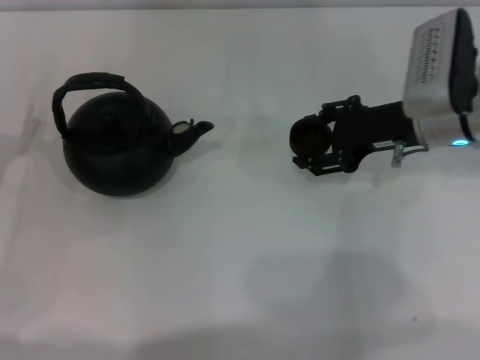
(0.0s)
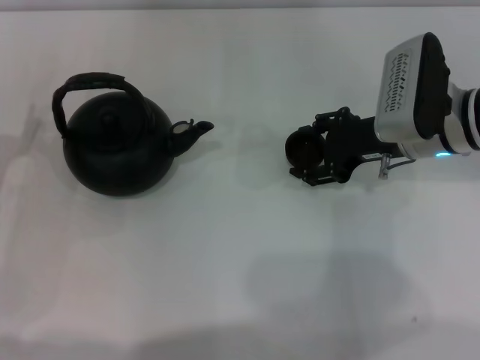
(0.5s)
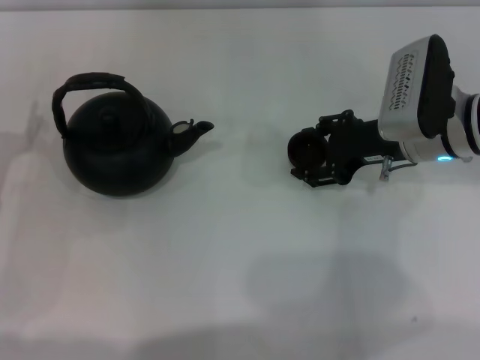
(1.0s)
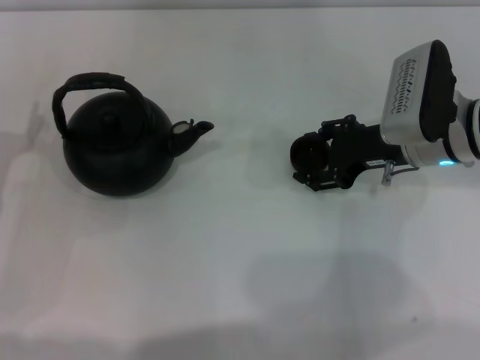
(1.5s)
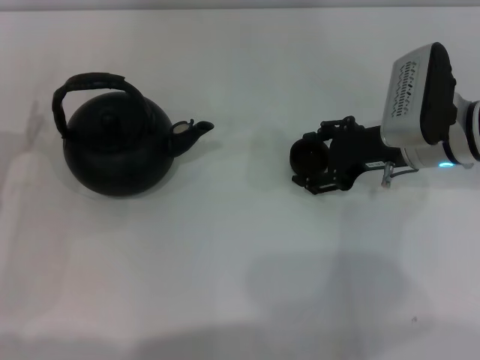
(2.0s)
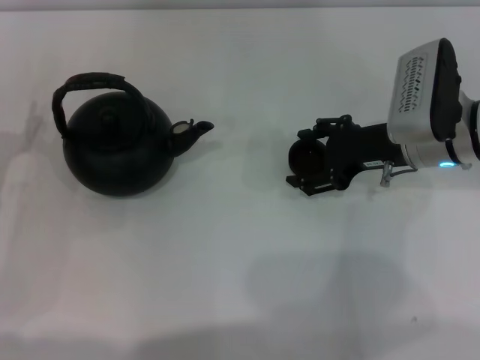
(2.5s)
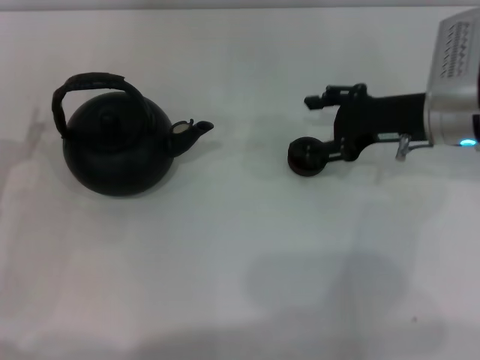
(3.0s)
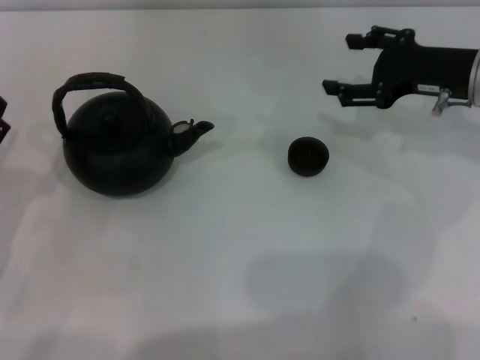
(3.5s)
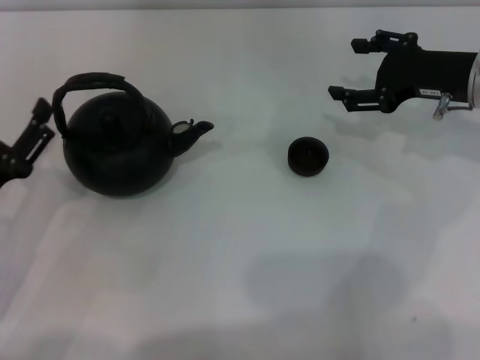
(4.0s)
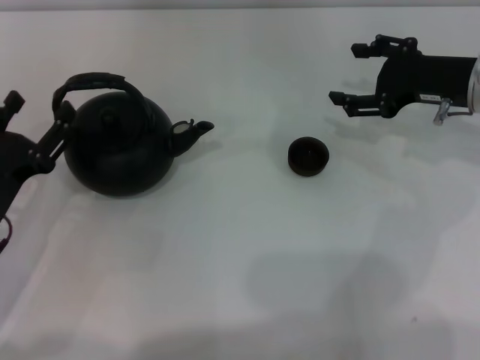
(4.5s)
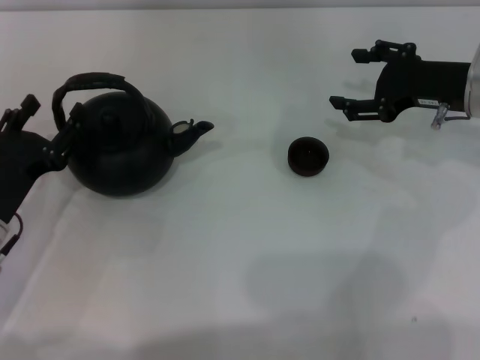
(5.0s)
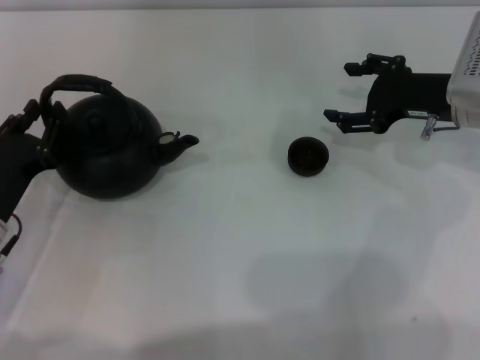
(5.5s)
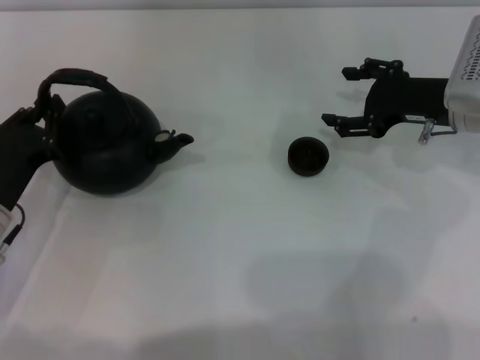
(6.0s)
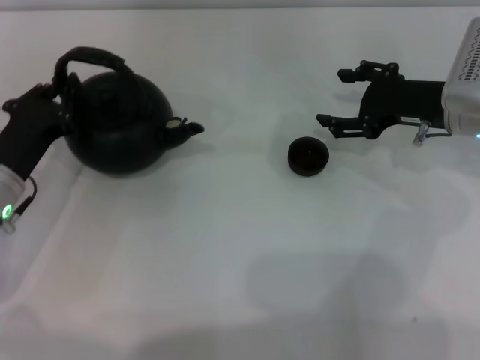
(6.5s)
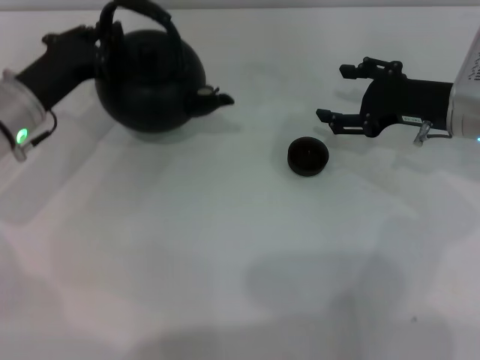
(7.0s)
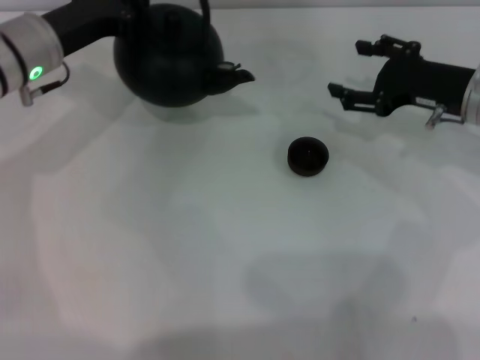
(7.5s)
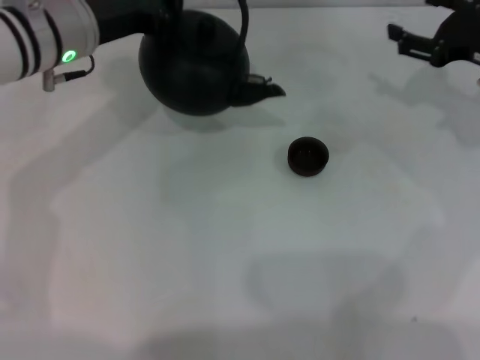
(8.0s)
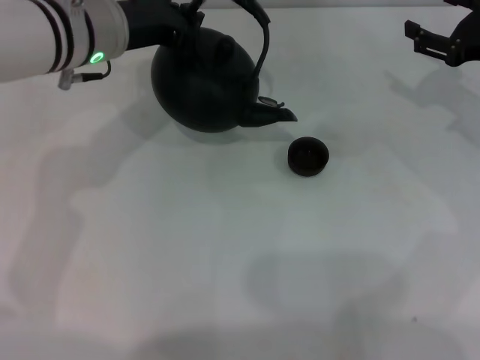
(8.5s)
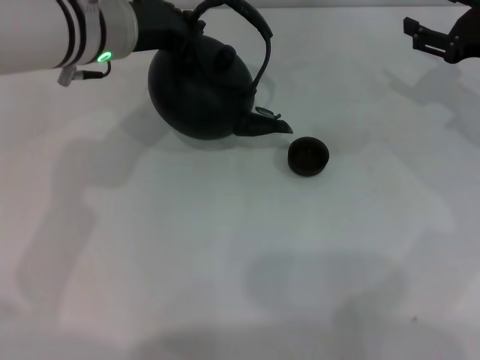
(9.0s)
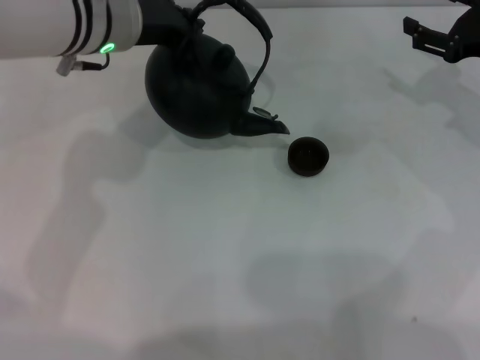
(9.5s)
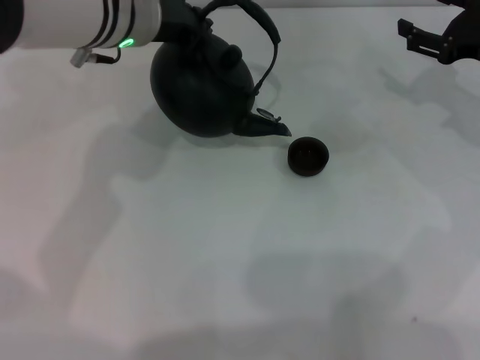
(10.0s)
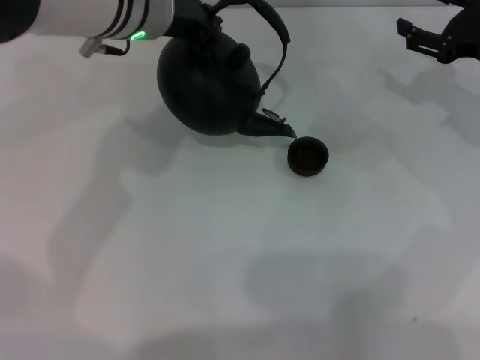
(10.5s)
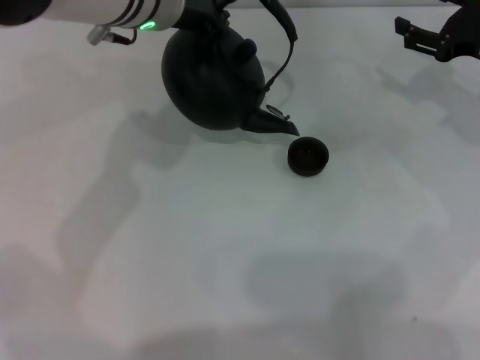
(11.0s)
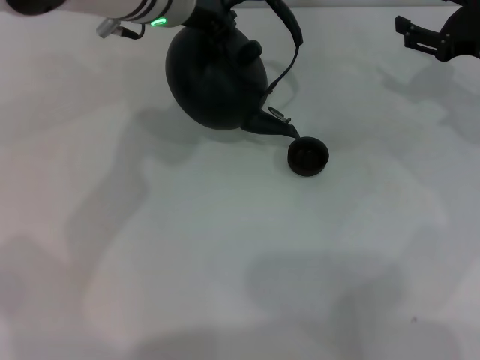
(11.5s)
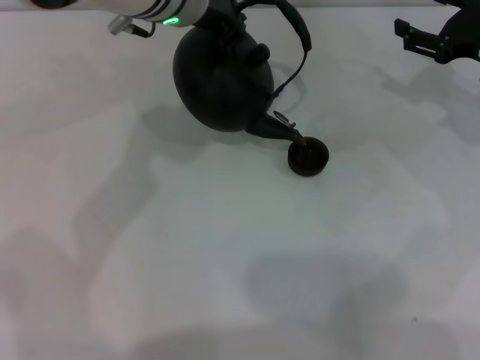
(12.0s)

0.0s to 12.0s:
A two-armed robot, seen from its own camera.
Task of the whole recording: Grasp the handle of the teapot with one hand and pour tea into the teacup.
Step, 0.5s to 3.5s: Place the teacup in the center of view with the right gripper.
Step, 4.0s to 8.0s: Pick up the teapot with the left gripper.
0.0s to 2.0s: There are only small adjustments of the grippers.
2.0s to 4.0s: The right gripper is displaced to the right by approximately 5 cm, and opens, while the left gripper moves backward, some 5 cm.
4.0s to 6.0s: The left gripper changes place by about 5 cm, and closes.
6.0s to 8.0s: The right gripper moves to the right, some 5 cm; the left gripper shifts roughly 20 cm forward, upward and to the right.
8.0s to 10.0s: The left gripper moves to the right, some 5 cm.
10.0s to 12.0s: The grippers stay close to where they were, moving slightly.

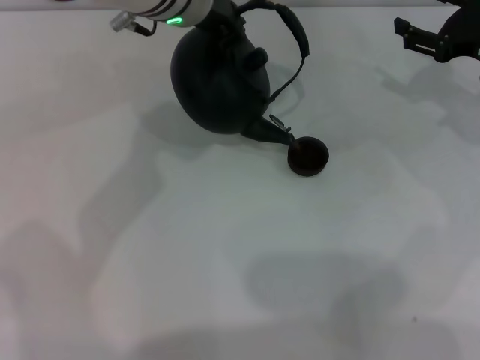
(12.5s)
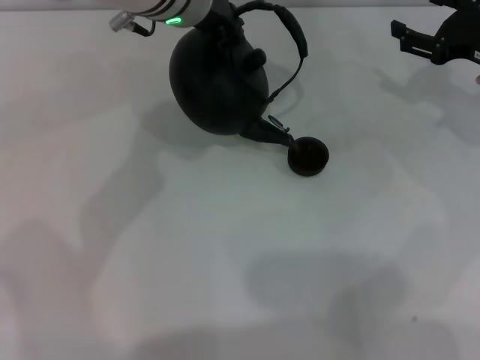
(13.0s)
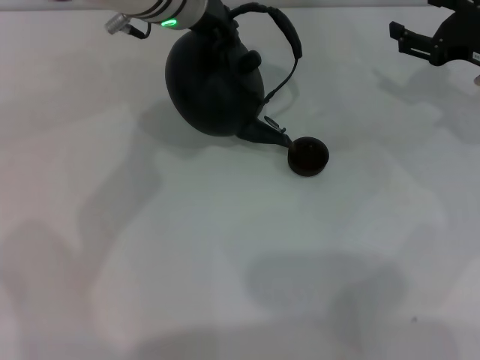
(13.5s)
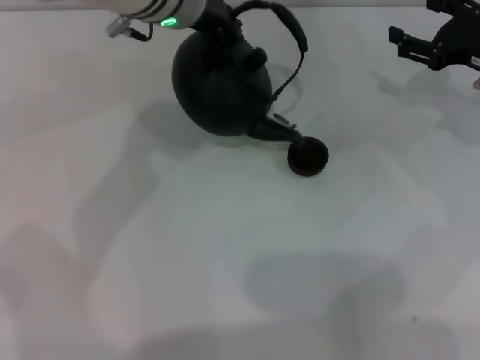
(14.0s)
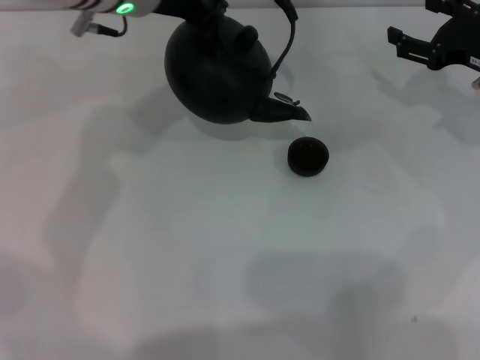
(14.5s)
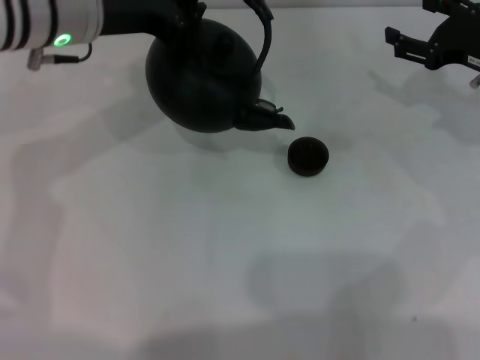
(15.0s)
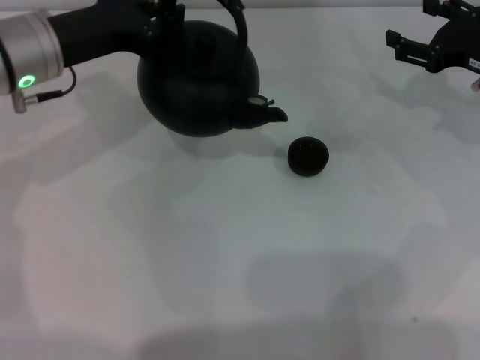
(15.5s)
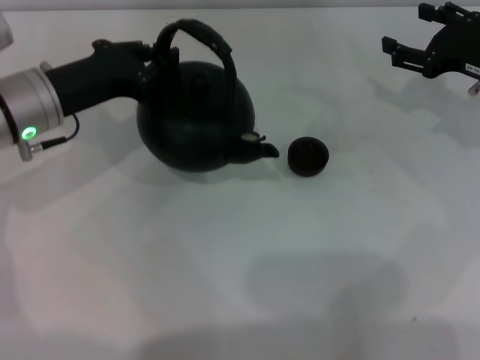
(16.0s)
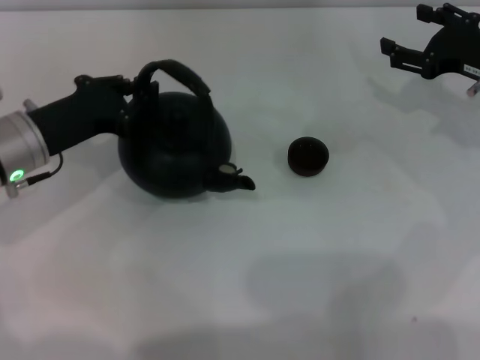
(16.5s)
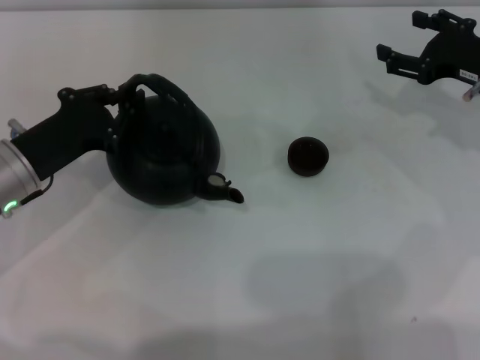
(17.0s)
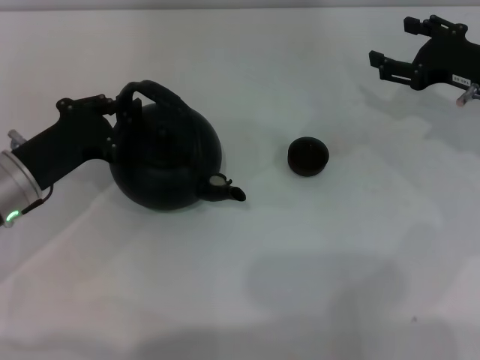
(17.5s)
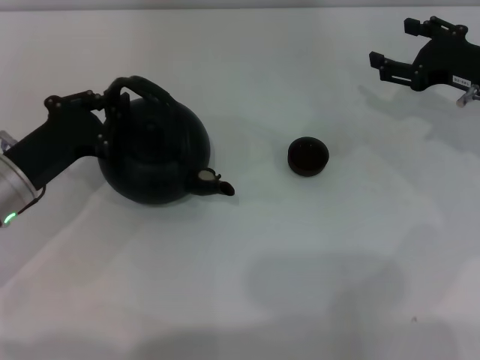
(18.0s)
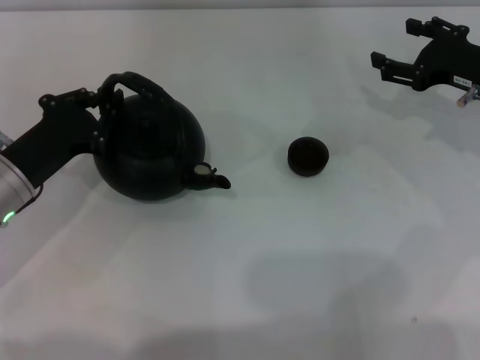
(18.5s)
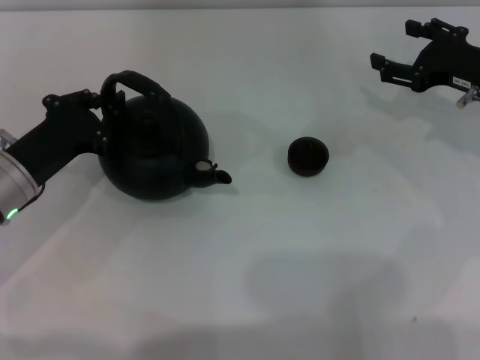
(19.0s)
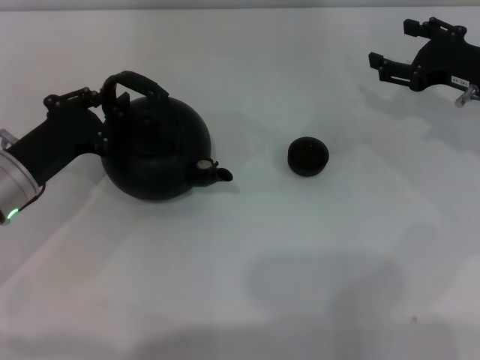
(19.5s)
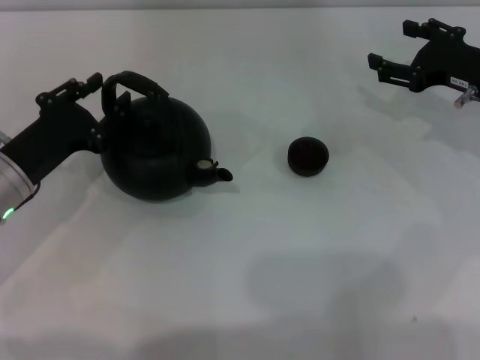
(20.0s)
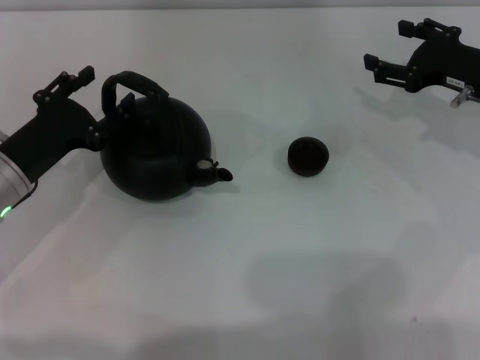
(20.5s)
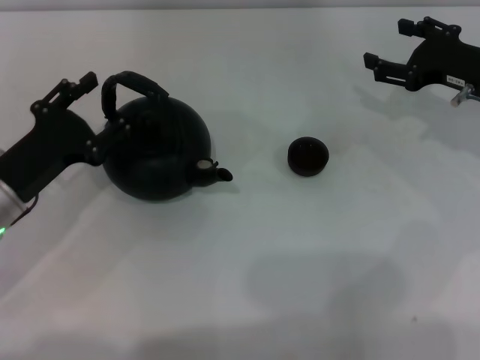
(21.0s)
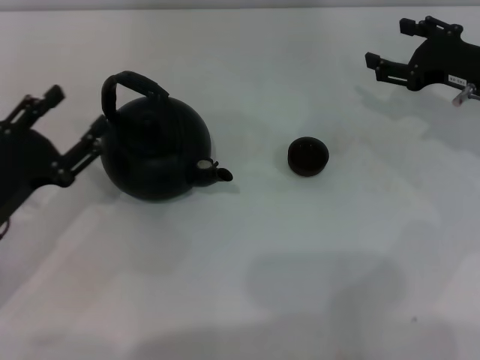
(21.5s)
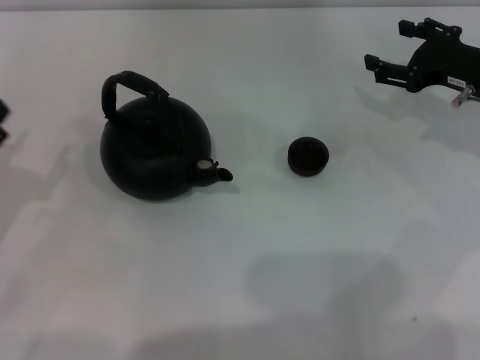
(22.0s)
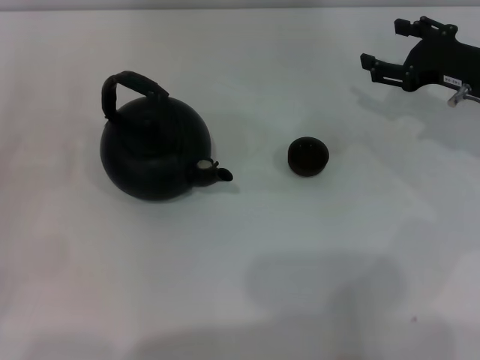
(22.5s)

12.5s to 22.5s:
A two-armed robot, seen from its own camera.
Task of the whole recording: Grasp the handle of the teapot with one hand and pour tea into the teacup.
Step, 14.5s to 21.0s: Put down the teapot with the left gripper.
12.5s to 14.5s: The left gripper is displaced to the left by some 5 cm.
14.5s to 16.5s: The left gripper shifts approximately 20 cm downward, to the left and backward.
16.5s to 18.5s: The left gripper moves roughly 5 cm.
18.5s to 20.5s: The left gripper opens.
20.5s to 22.5s: The left gripper is displaced to the left and backward by about 15 cm.

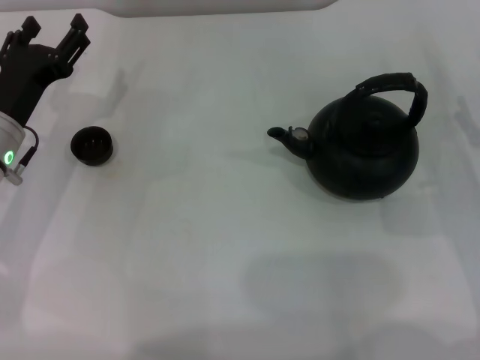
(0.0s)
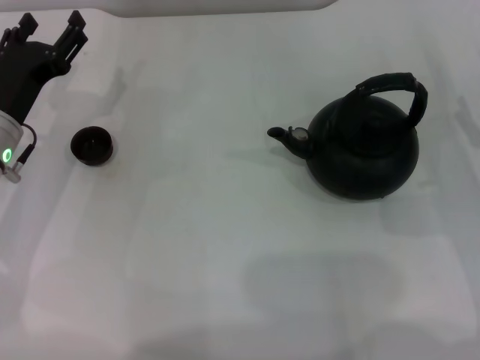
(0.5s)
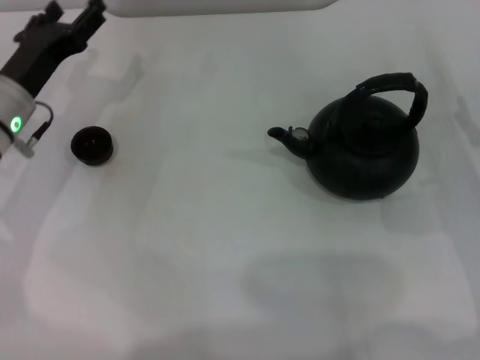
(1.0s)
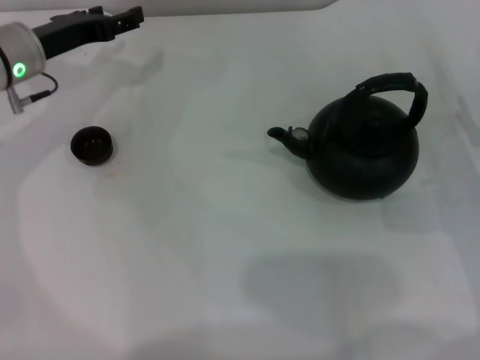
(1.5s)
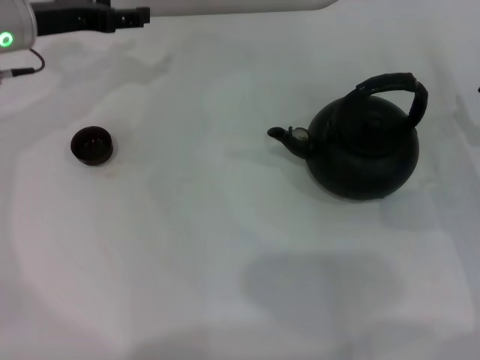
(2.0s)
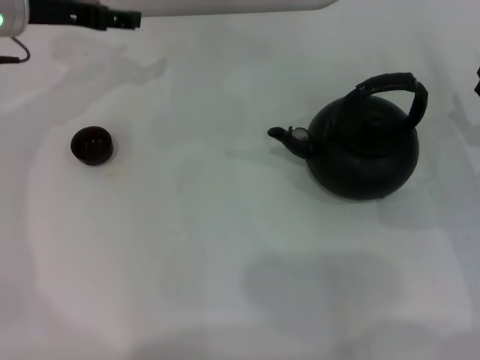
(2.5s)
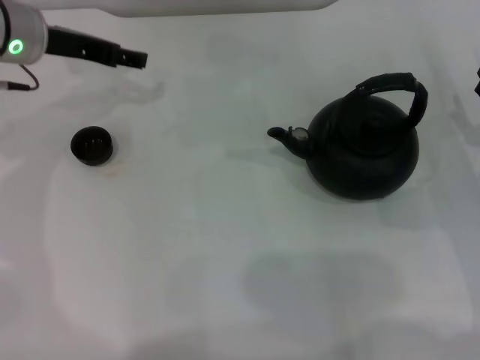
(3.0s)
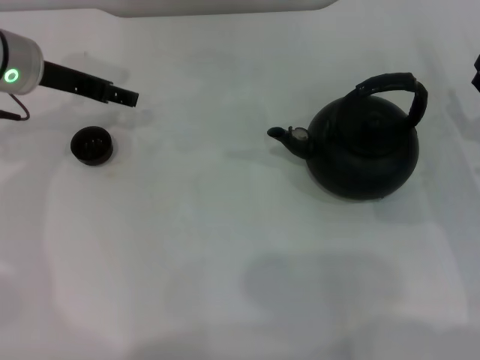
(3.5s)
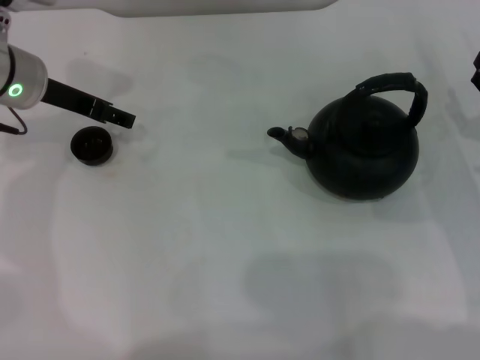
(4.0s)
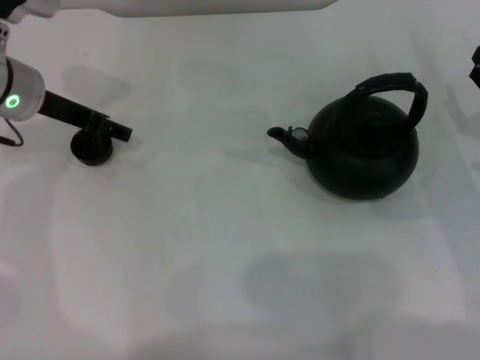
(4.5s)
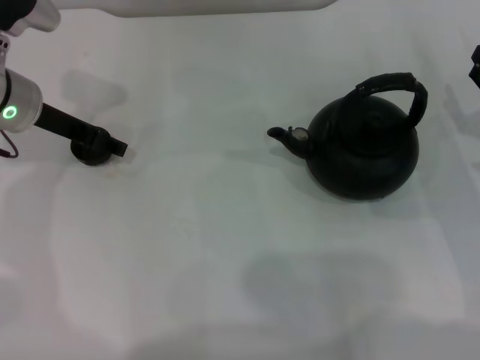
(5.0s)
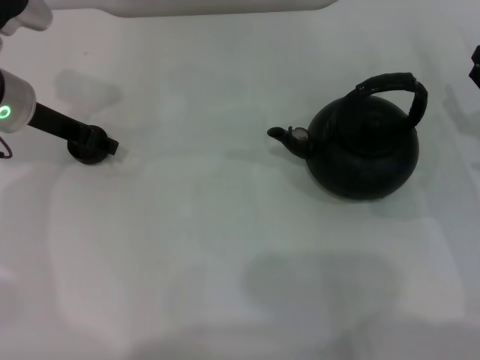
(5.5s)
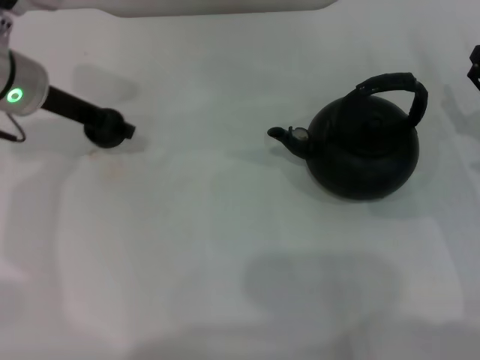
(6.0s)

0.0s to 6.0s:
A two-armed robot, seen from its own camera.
Task of the whole recording: Grasp the handle of the teapot with one hand and pour tea into the teacup.
Step, 0.0s to 5.5s: Pick up the teacup with the left gripper.
0.0s to 2.0s: The left gripper is displaced forward and upward by roughly 15 cm.
4.0s to 6.0s: The left gripper closes up.
